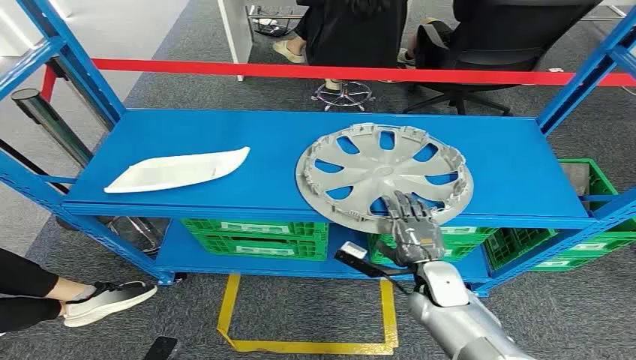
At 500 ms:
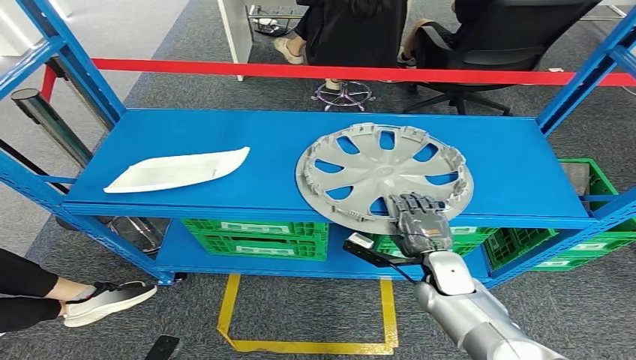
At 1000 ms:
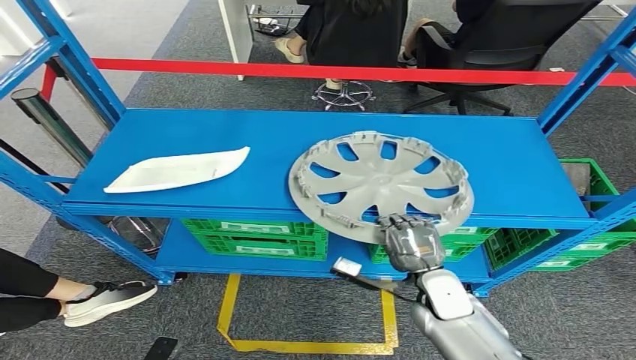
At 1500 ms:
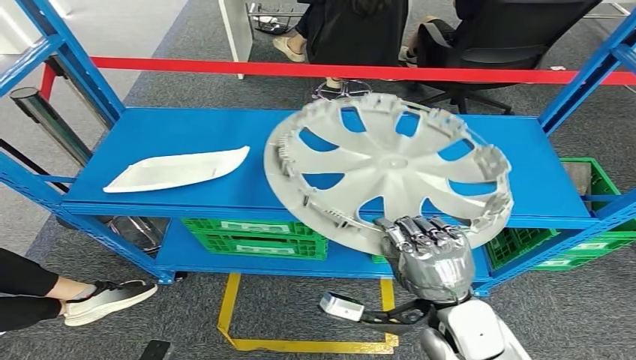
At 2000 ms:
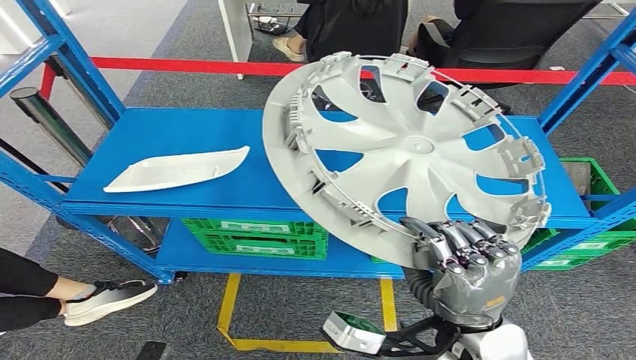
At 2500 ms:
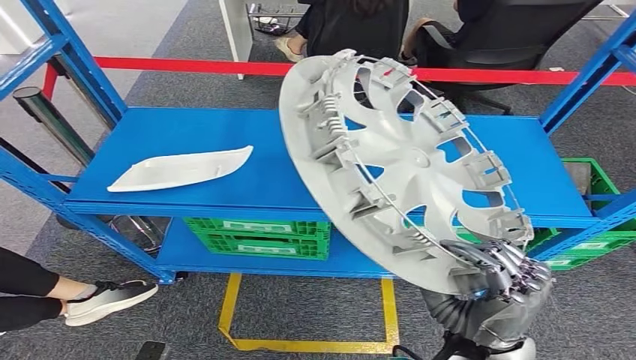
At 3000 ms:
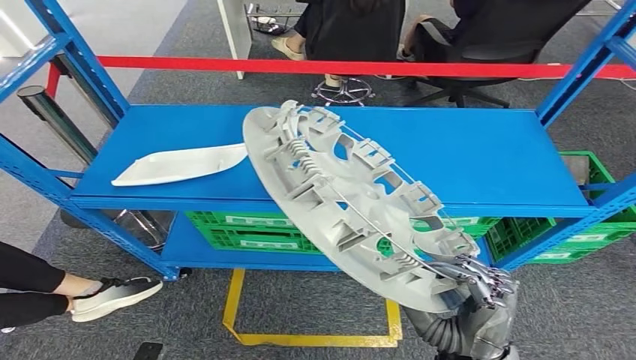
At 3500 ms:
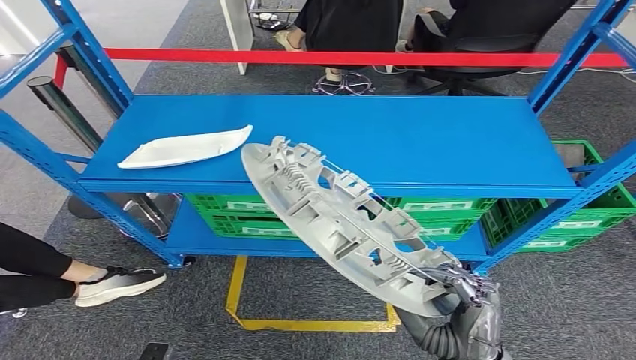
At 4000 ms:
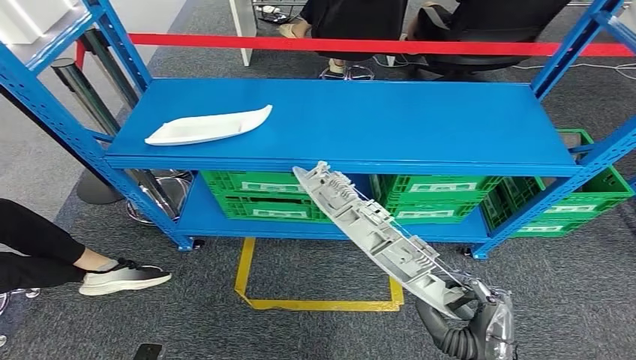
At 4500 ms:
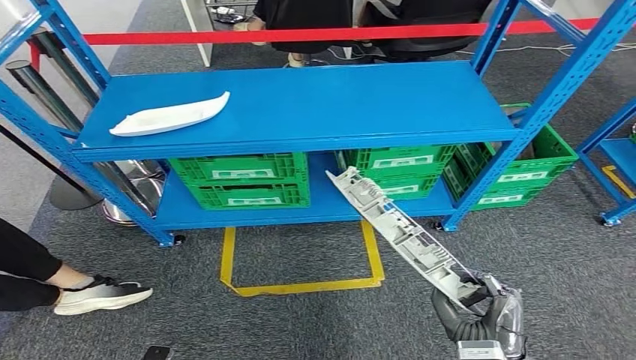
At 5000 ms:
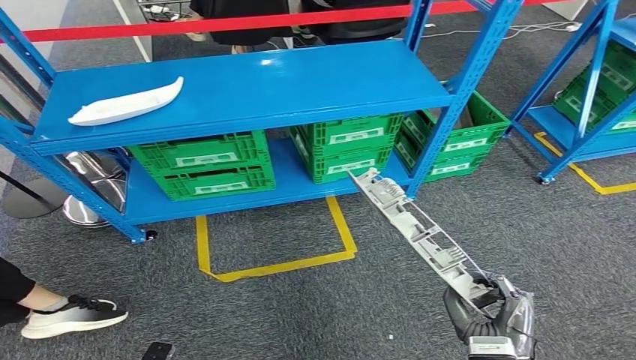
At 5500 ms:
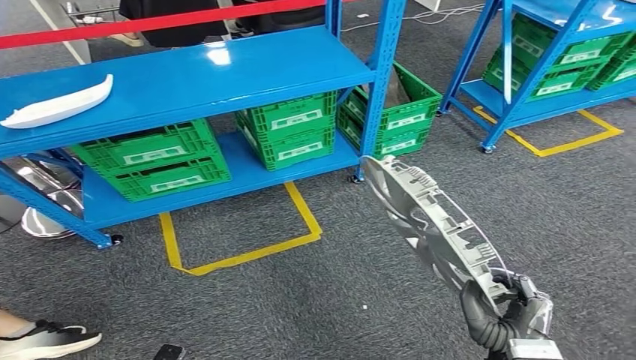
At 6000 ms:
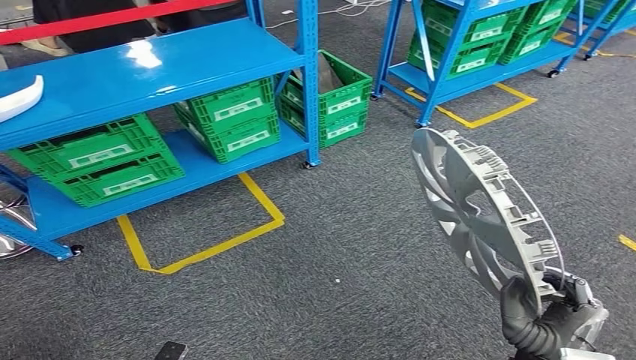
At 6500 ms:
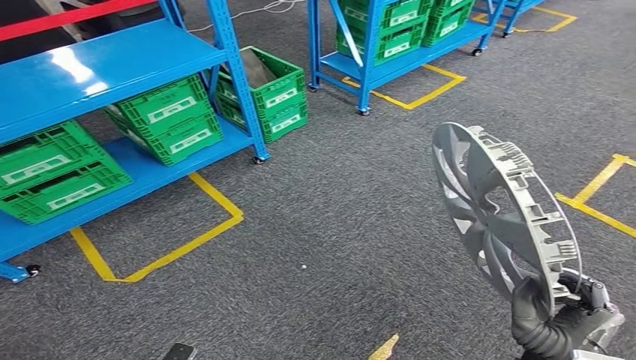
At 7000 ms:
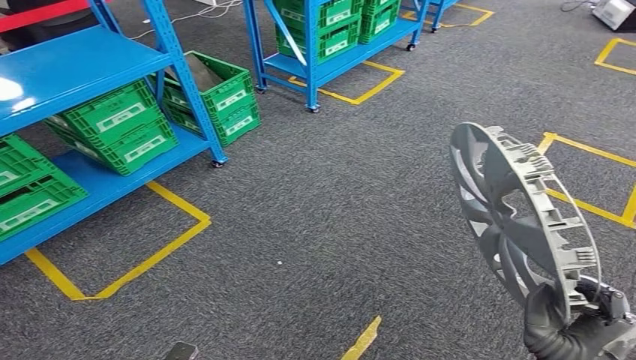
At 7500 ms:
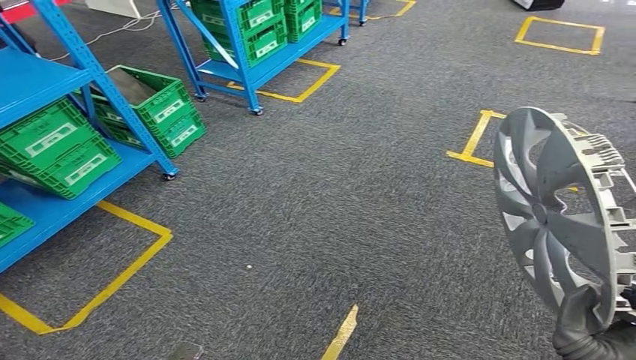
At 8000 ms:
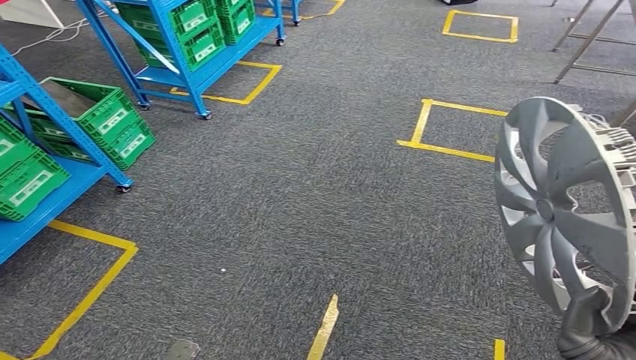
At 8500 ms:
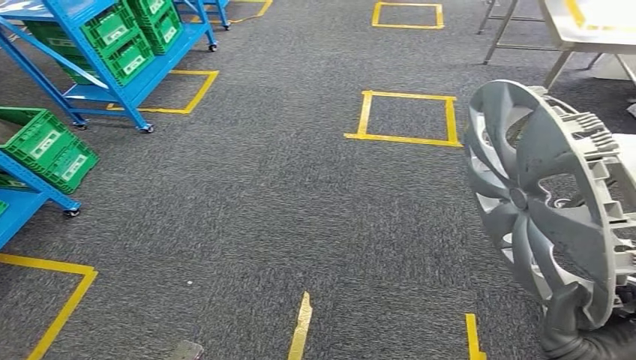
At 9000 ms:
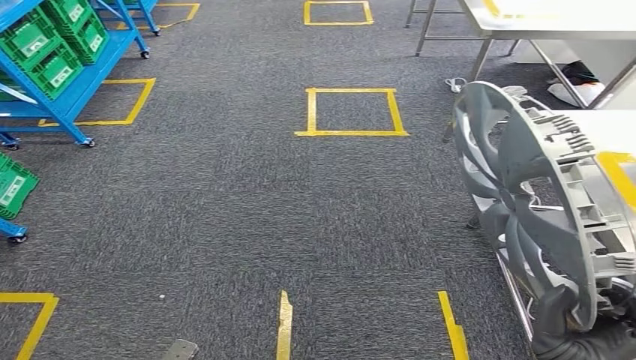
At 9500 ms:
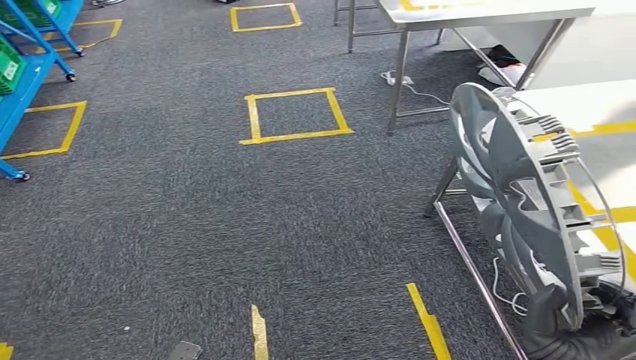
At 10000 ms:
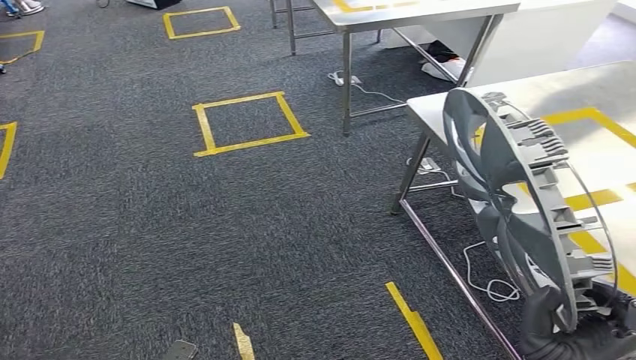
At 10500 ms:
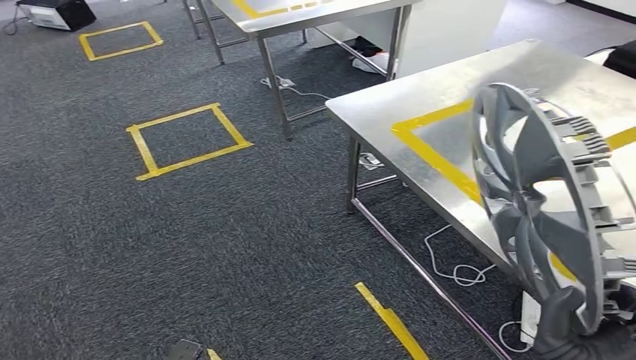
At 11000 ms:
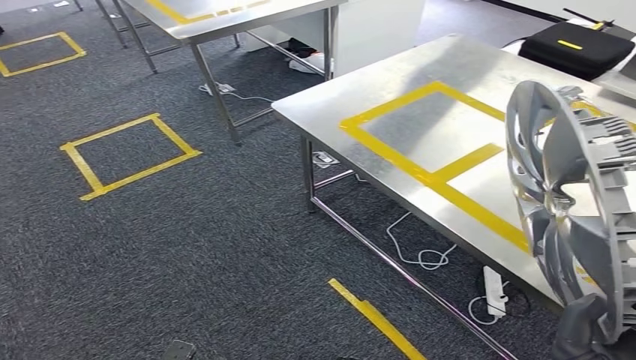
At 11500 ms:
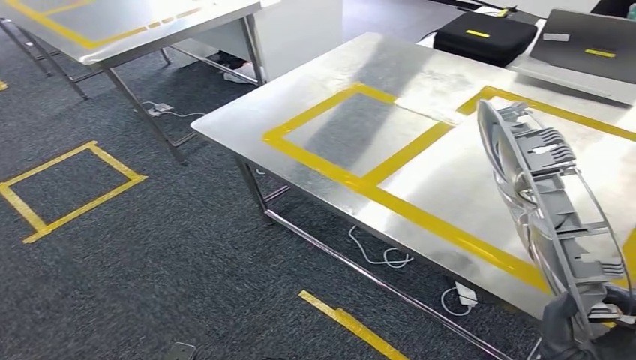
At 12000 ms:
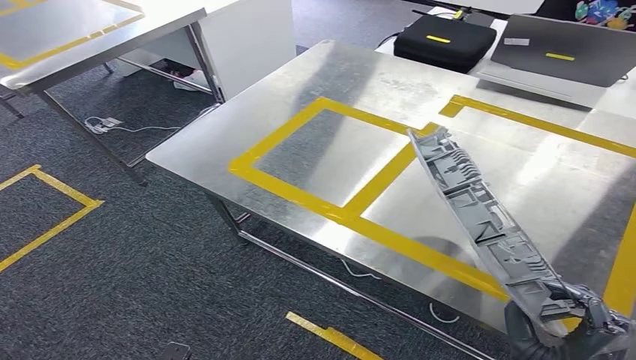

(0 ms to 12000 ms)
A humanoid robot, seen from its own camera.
Step, 0 ms - 3000 ms: Take small components from the rack.

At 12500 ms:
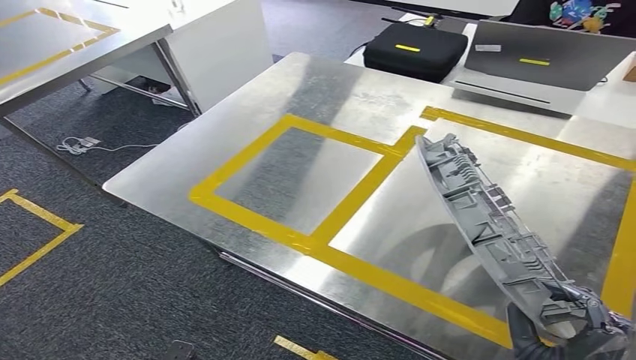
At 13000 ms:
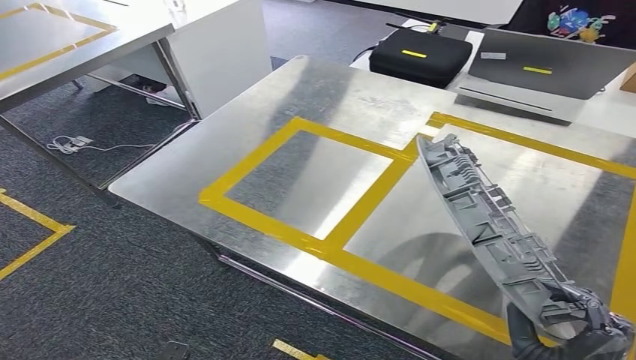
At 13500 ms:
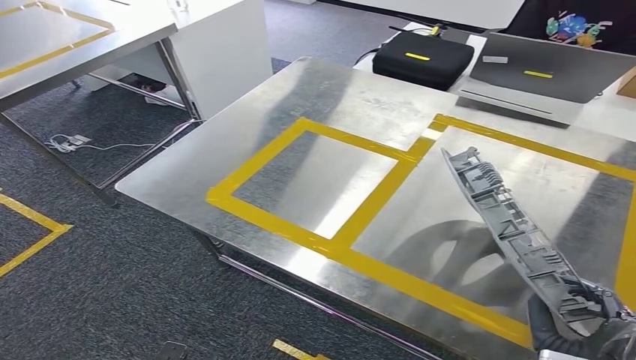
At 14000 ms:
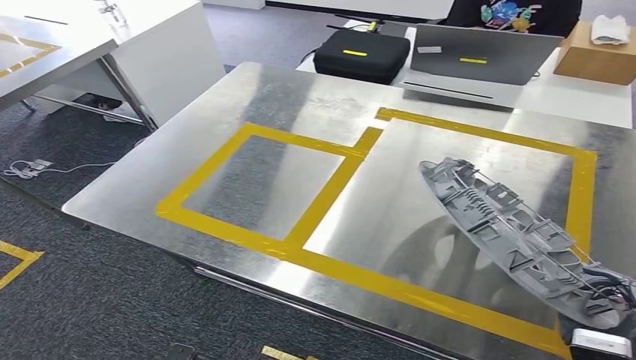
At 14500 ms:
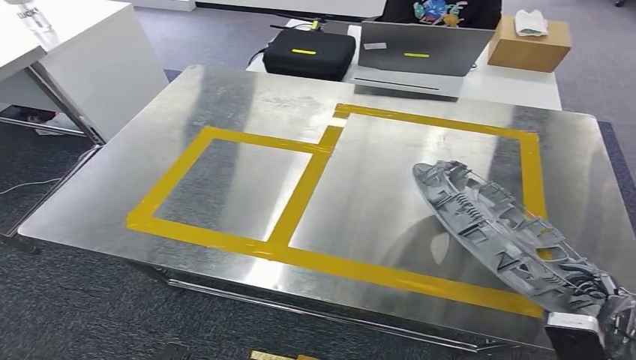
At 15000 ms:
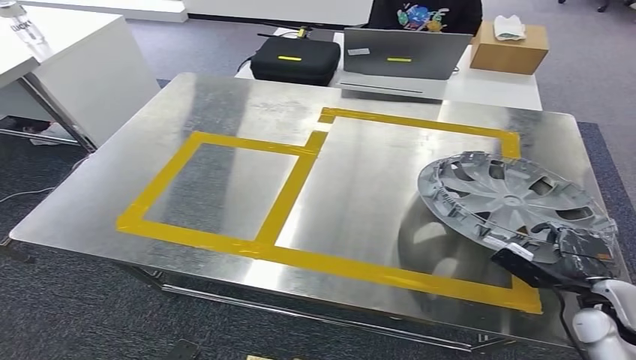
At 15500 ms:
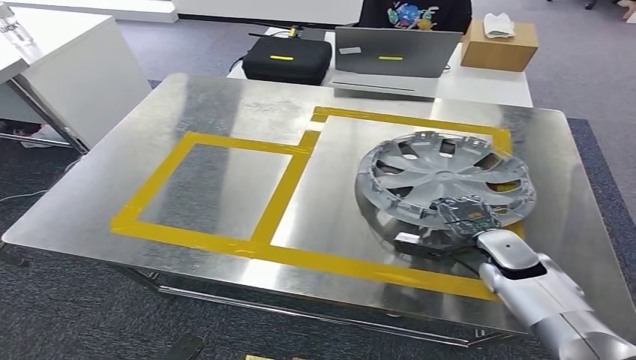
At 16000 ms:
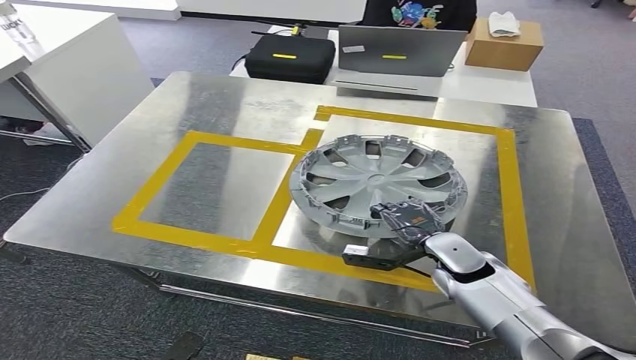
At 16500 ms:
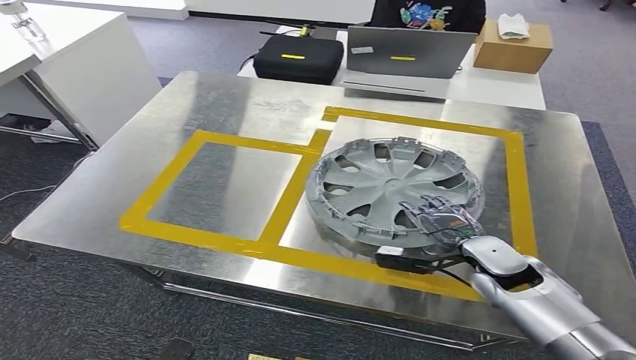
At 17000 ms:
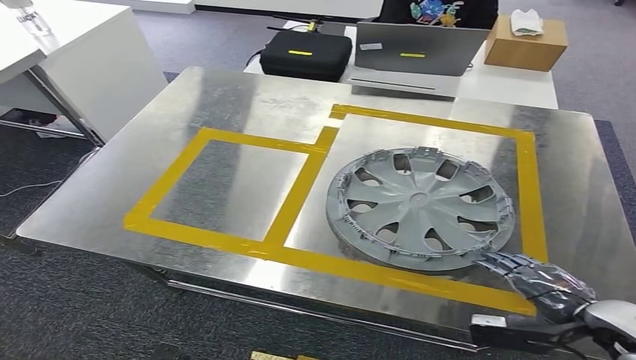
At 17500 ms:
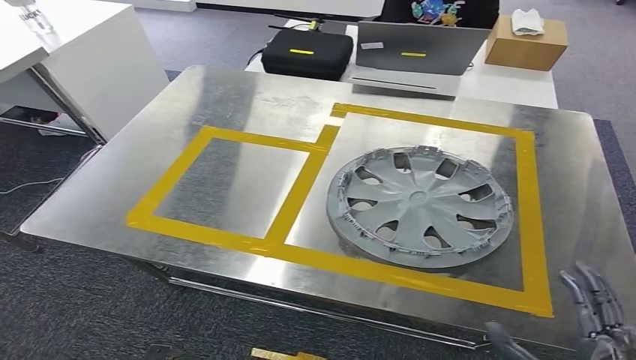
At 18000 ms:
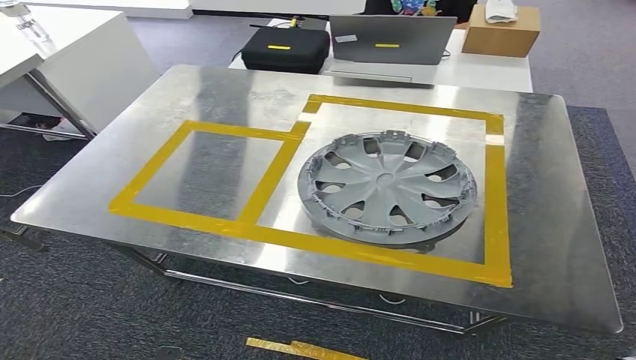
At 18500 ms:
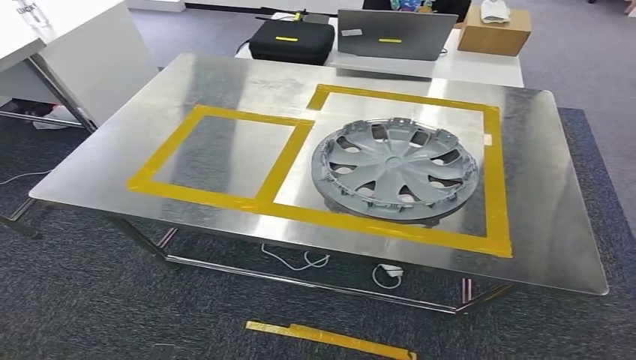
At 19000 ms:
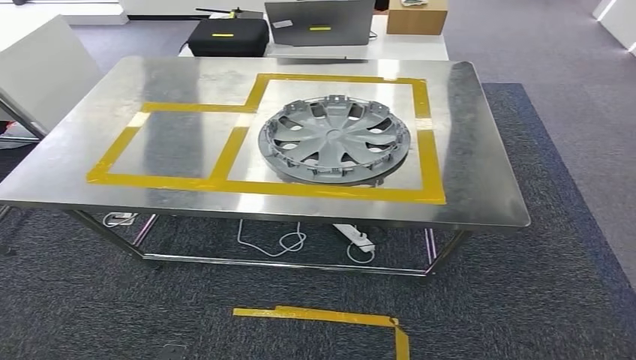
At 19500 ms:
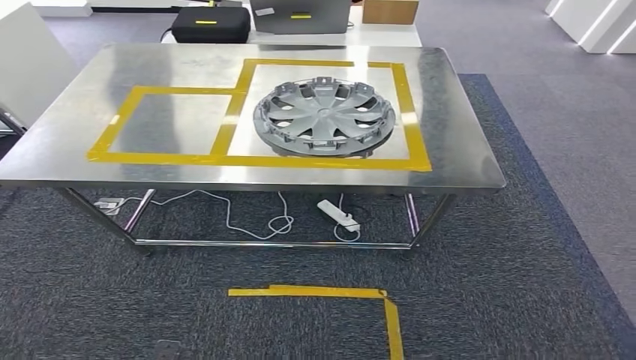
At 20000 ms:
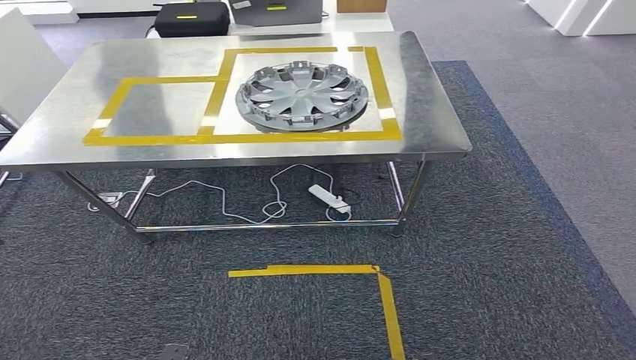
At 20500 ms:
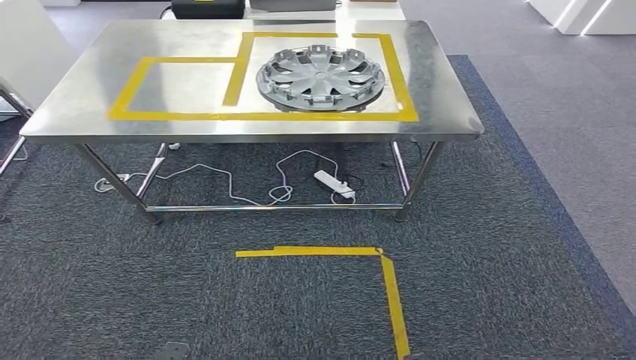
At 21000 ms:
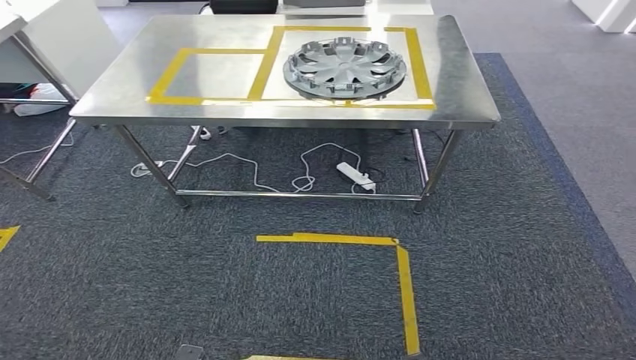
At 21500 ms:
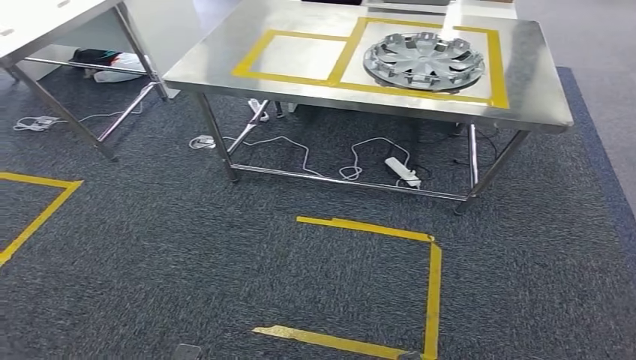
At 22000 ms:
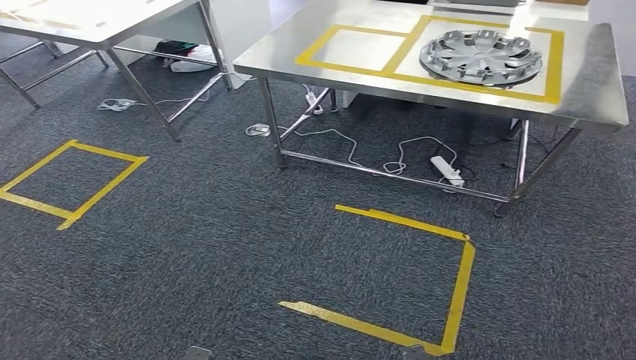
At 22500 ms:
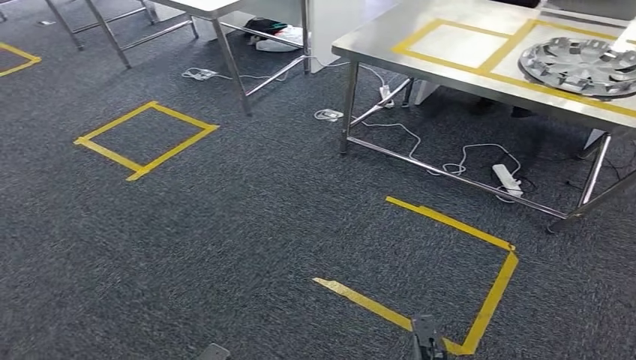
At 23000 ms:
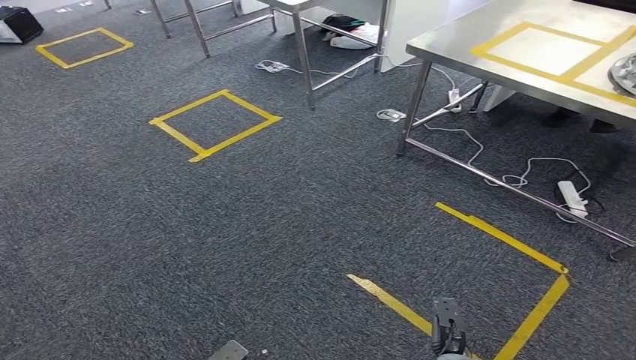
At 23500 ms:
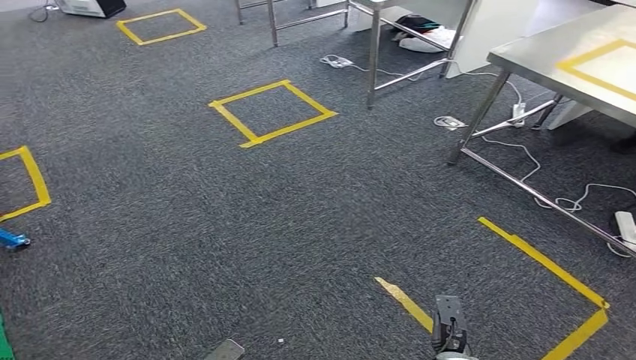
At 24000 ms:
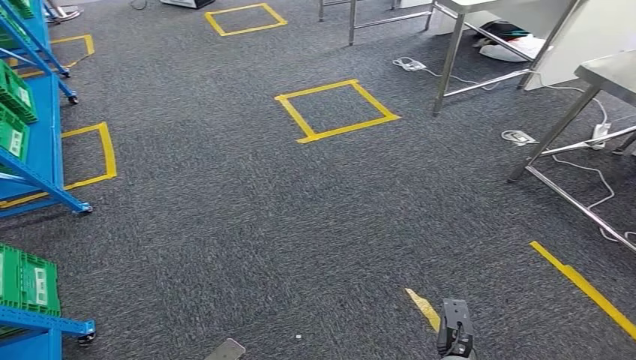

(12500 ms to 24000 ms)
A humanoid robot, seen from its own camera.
Step, 12500 ms - 16500 ms: Insert the small parts into the corresponding holes on the workbench.
